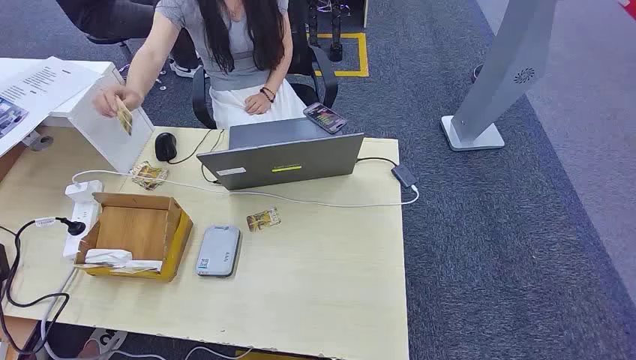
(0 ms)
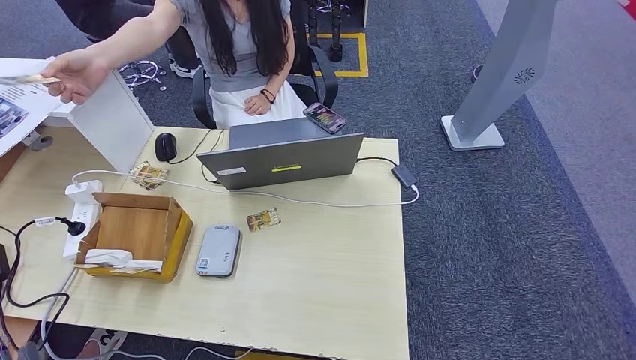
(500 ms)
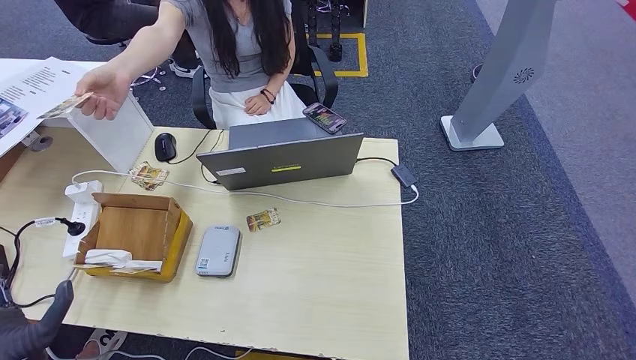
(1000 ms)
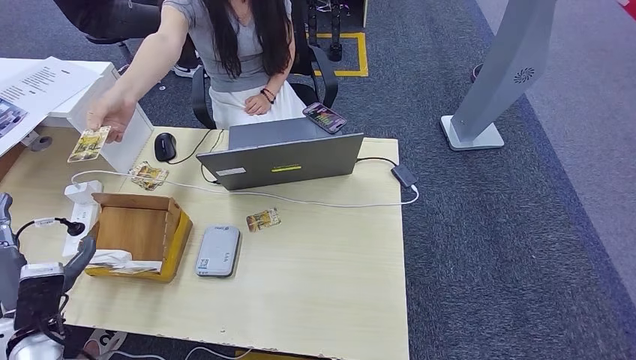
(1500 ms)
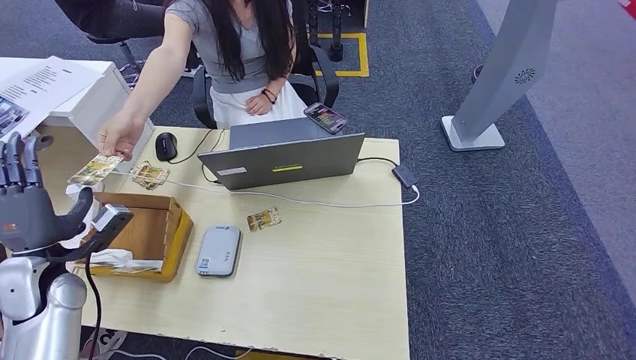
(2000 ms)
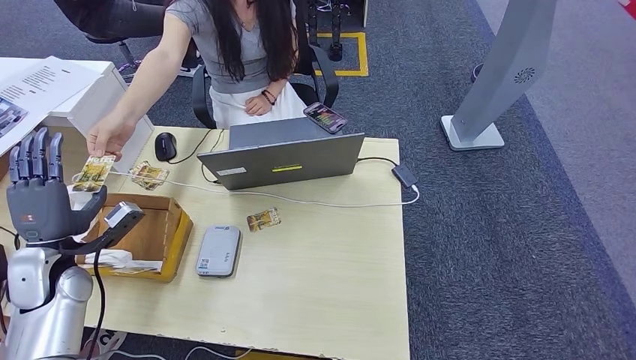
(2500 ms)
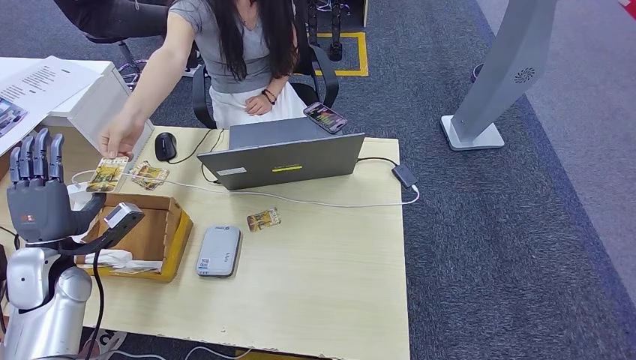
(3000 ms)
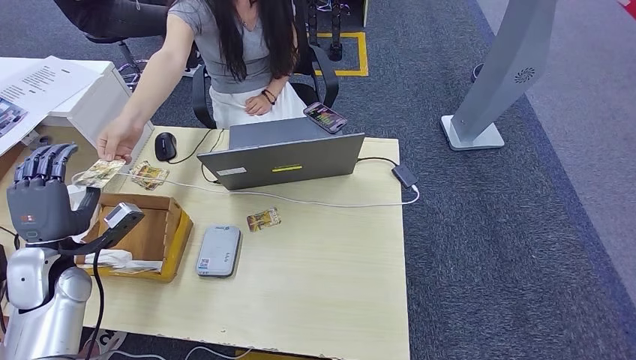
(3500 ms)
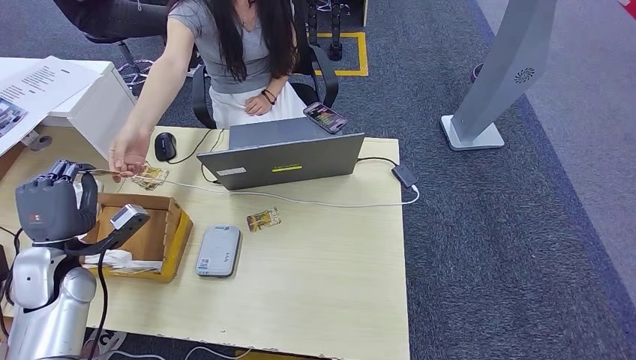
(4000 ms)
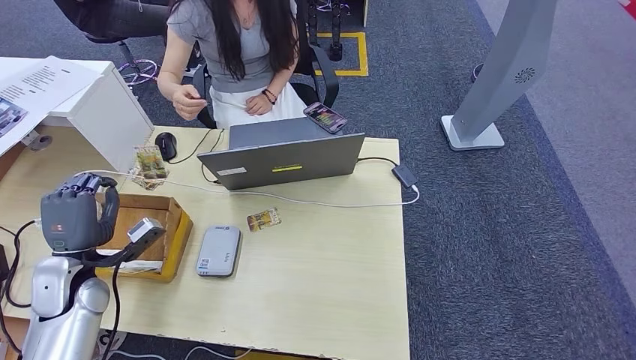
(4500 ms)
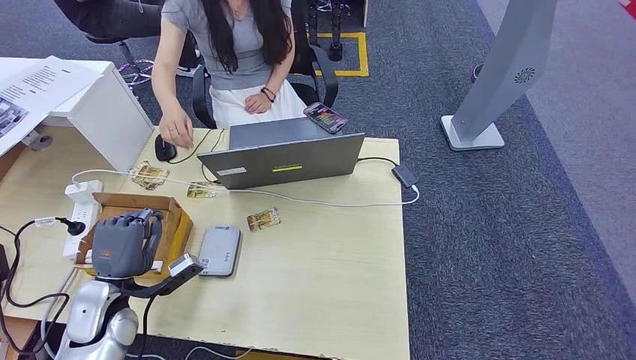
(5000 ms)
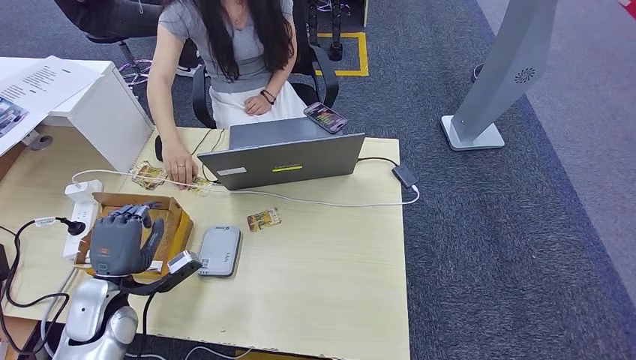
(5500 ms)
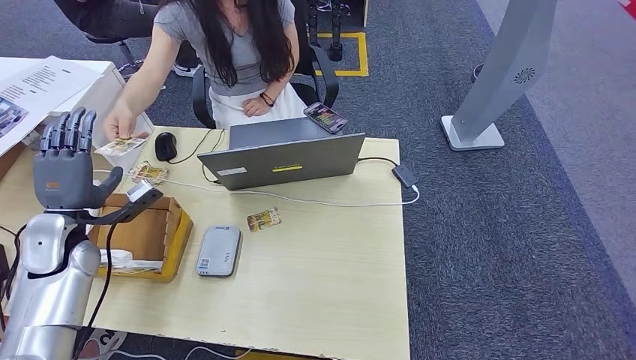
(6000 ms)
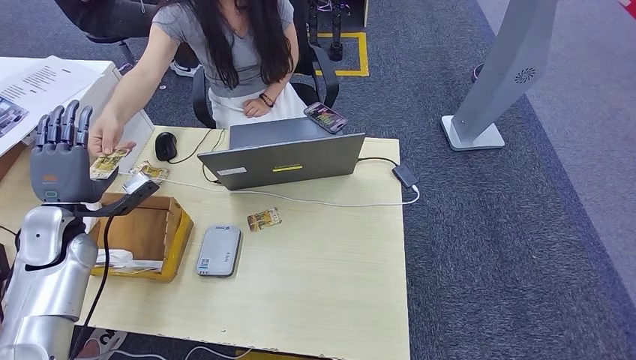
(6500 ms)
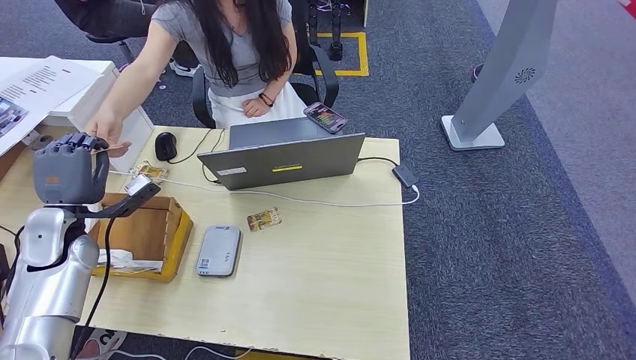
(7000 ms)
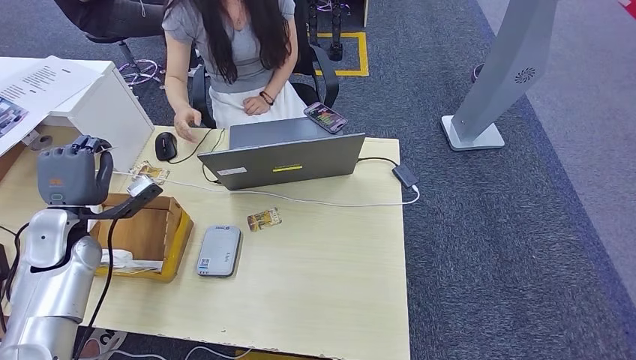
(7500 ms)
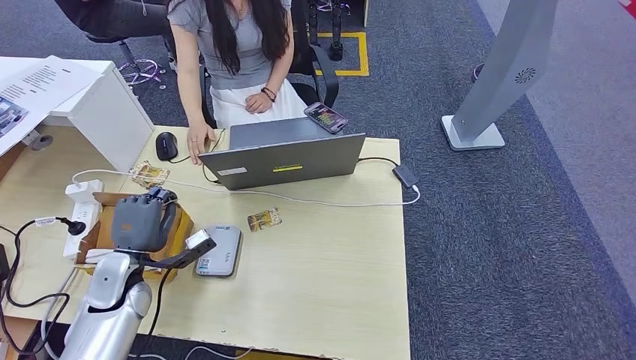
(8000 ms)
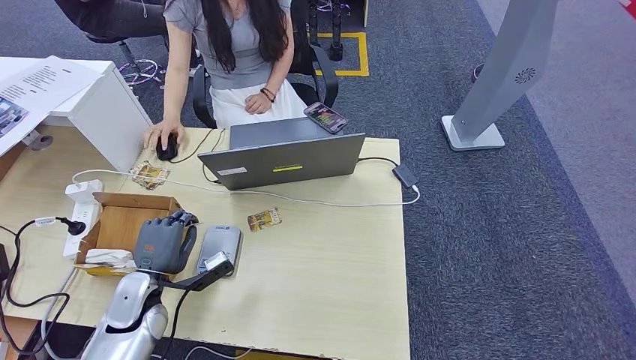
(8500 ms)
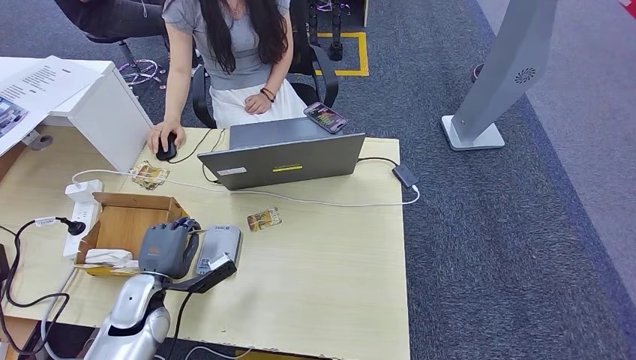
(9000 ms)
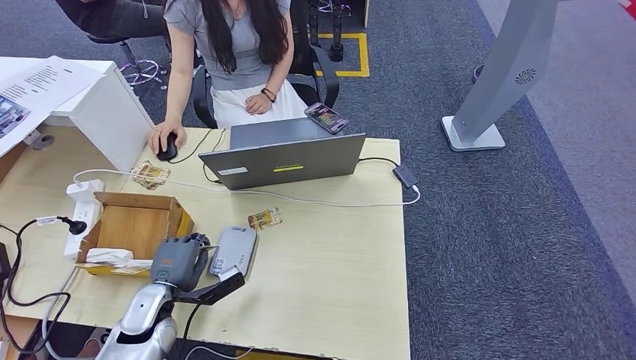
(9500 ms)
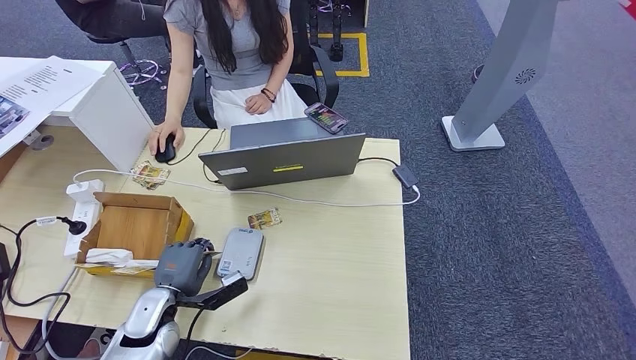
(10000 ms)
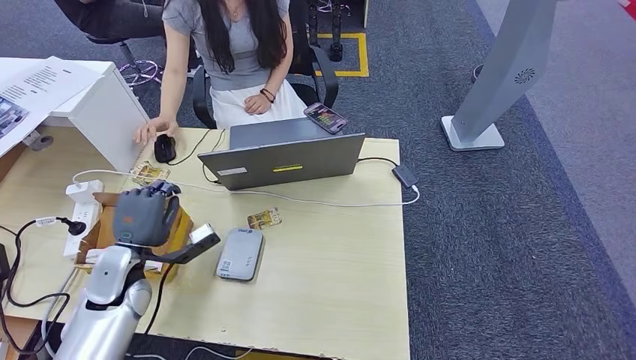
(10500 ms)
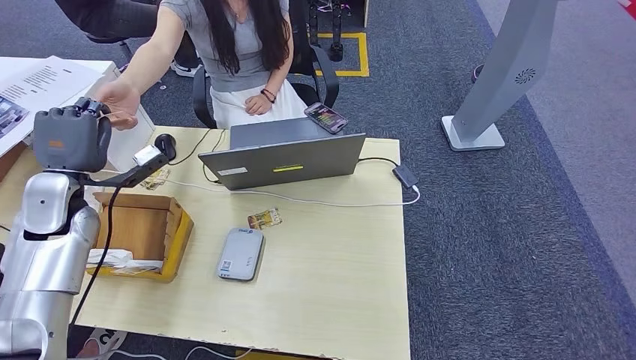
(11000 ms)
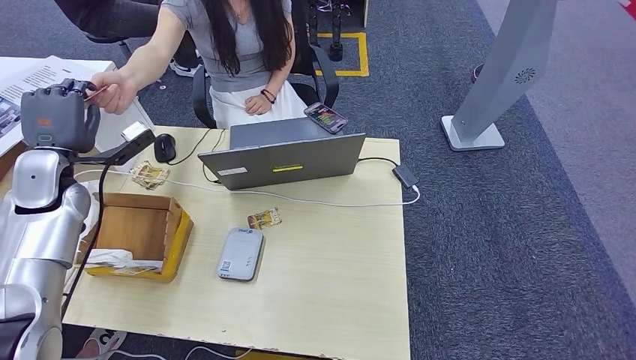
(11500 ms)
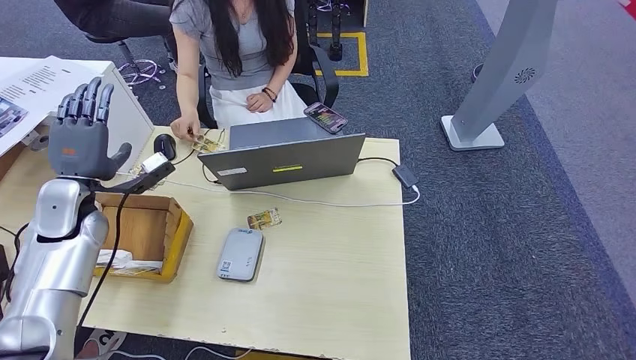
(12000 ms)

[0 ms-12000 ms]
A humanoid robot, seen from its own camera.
Step, 0 ms to 5000 ms: Take the ID card from the person's hand.
Step, 6000 ms to 7500 ms: Take the ID card from the person's hand.
Step, 8500 ms to 10500 ms: Place the ID card on the card reader.
2000 ms to 4000 ms: The hands stay close to where they were, moving slightly.
6000 ms to 8000 ms: The left hand shifts about 10 cm downward and to the right.
8000 ms to 10000 ms: The left hand shifts roughly 10 cm downward, to the right and backward.
10000 ms to 12000 ms: The left hand is displaced upward, forward and to the left by roughly 25 cm.

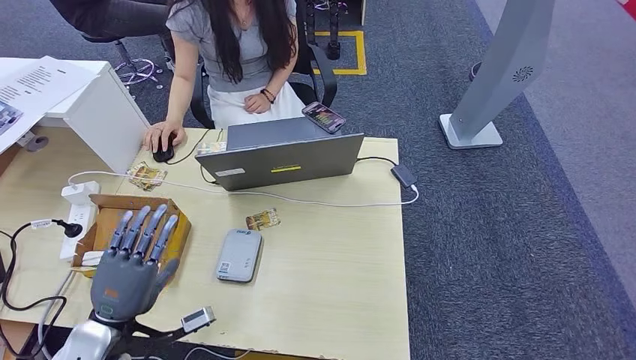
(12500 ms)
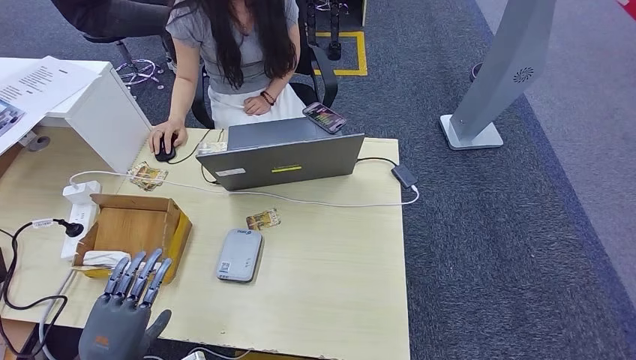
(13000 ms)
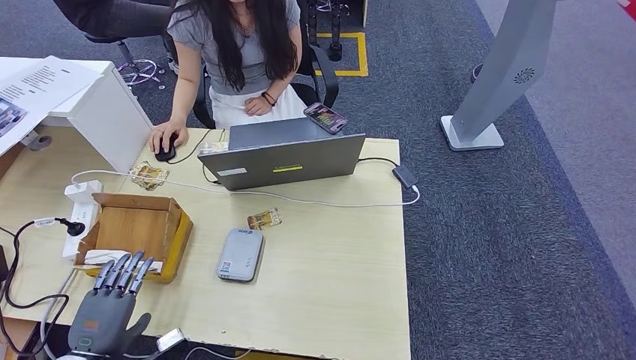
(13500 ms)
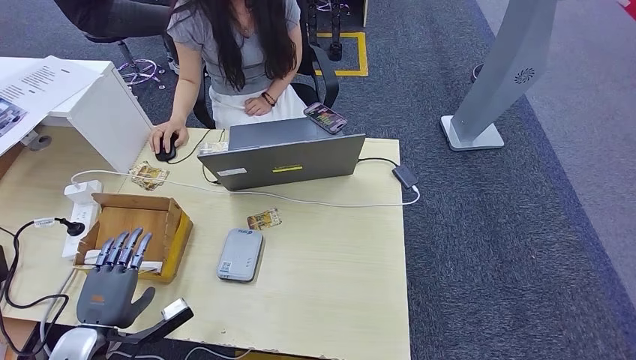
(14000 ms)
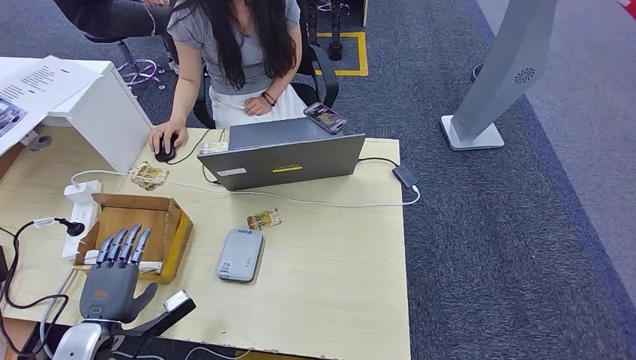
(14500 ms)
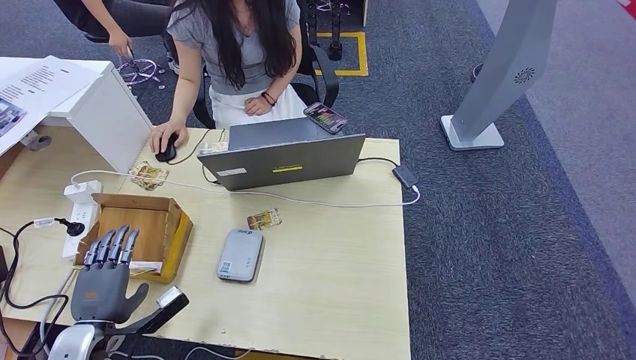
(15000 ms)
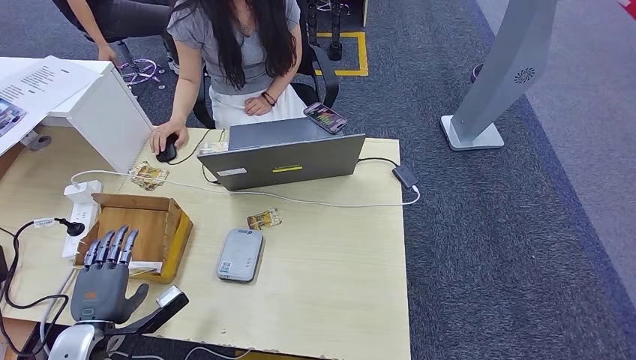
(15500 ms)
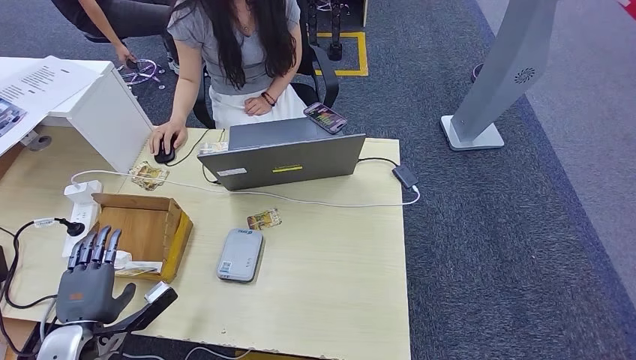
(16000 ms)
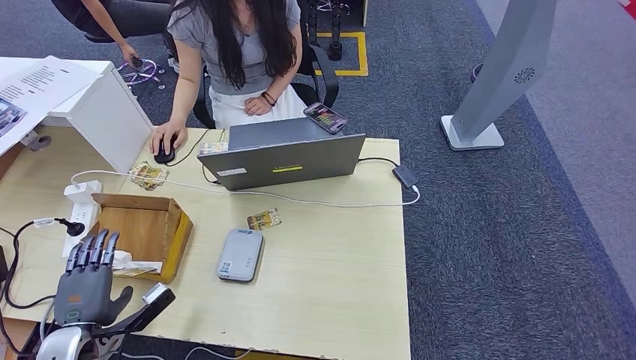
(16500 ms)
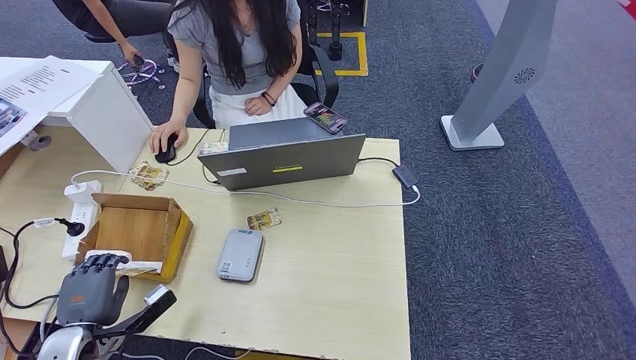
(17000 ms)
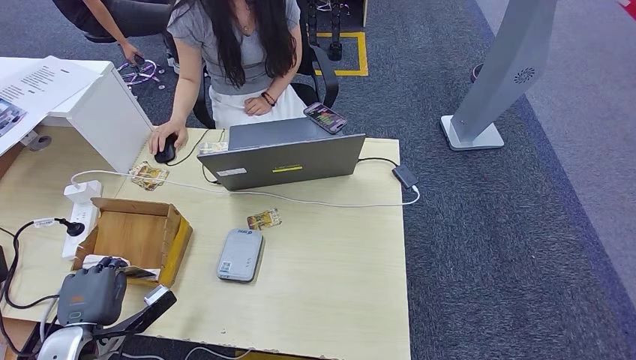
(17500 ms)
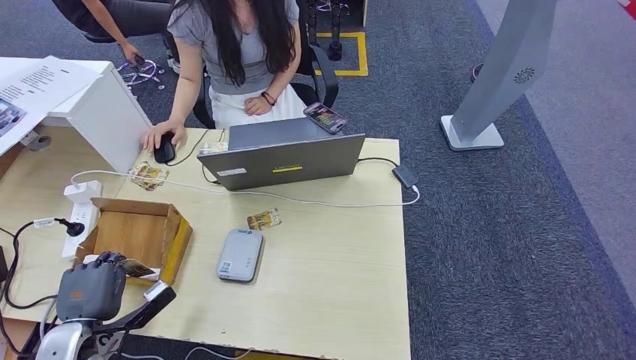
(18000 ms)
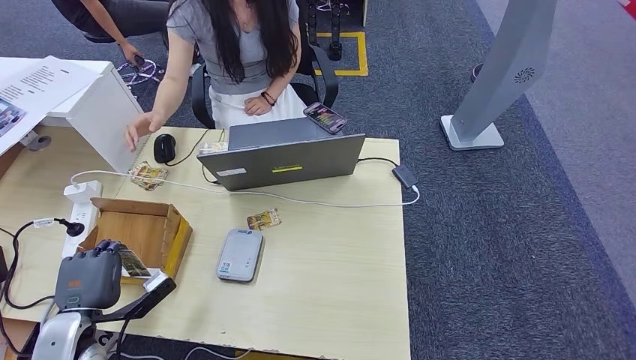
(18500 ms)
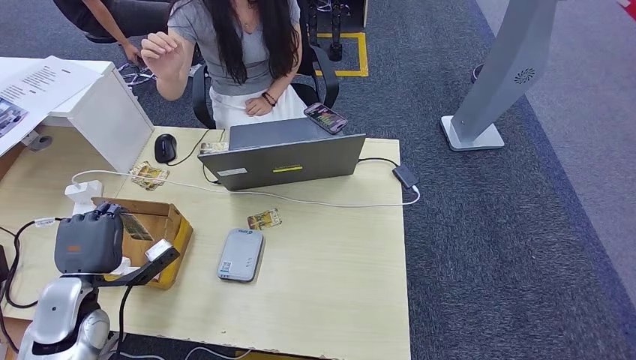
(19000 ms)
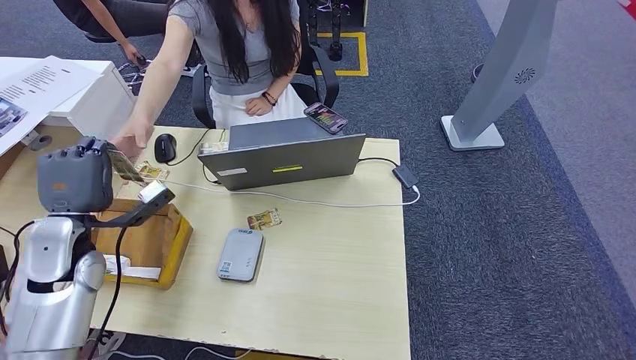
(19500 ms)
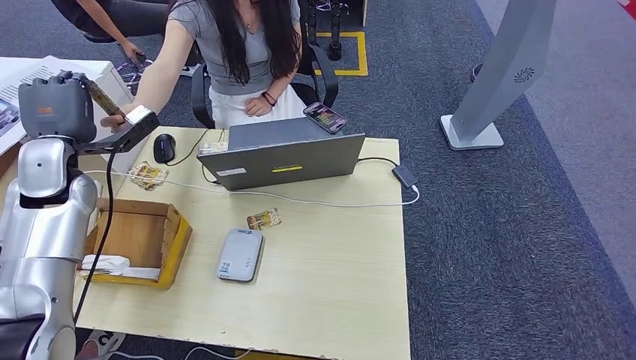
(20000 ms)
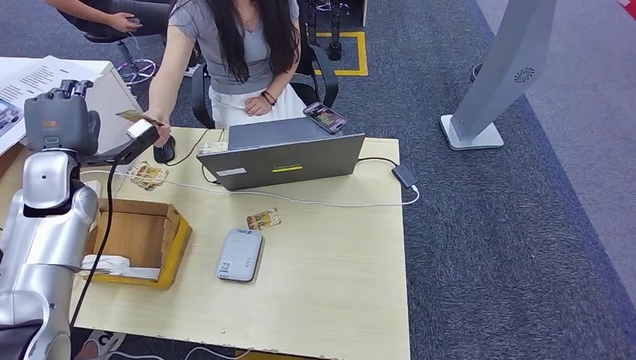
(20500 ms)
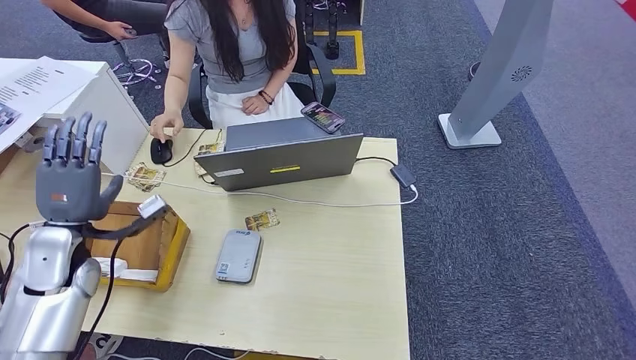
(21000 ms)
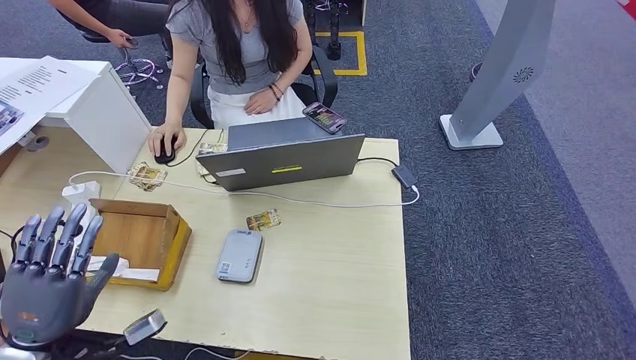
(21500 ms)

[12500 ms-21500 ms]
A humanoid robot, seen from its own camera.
Step, 17000 ms to 19000 ms: Pick up the room key from the key card box.
Step, 20000 ms to 21500 ms: Hand the room key to the person.
12500 ms to 14500 ms: The left hand reaches some 10 cm backward, then returns.
14500 ms to 17000 ms: The hands move only a little.
17000 ms to 19500 ms: The left hand is displaced upward and forward by about 15 cm.
19500 ms to 21500 ms: The left hand shifts approximately 15 cm backward.
